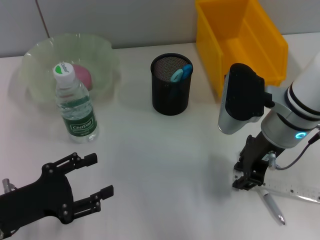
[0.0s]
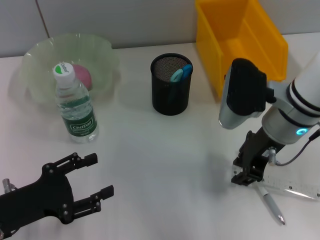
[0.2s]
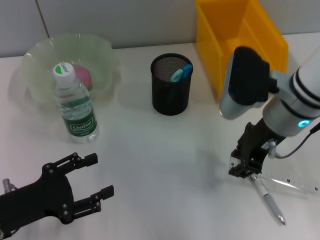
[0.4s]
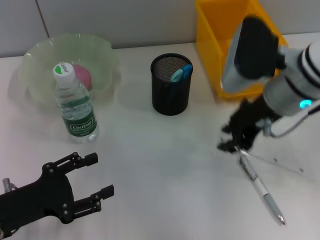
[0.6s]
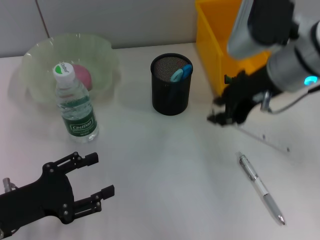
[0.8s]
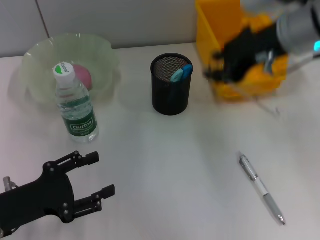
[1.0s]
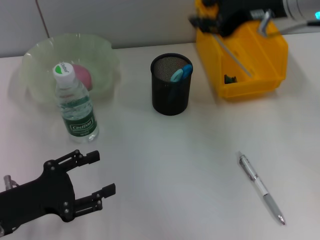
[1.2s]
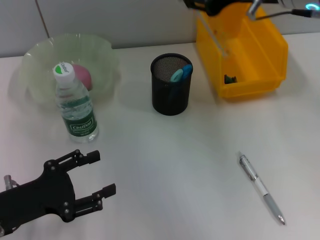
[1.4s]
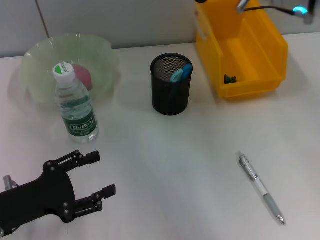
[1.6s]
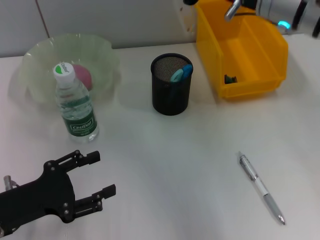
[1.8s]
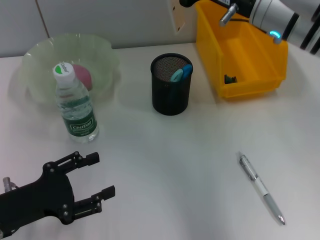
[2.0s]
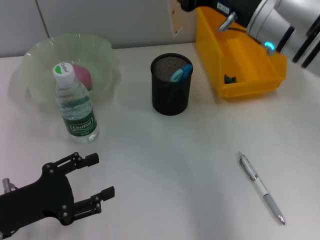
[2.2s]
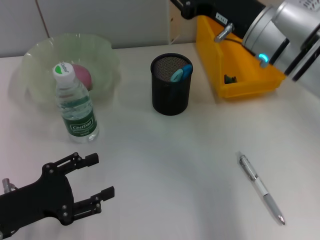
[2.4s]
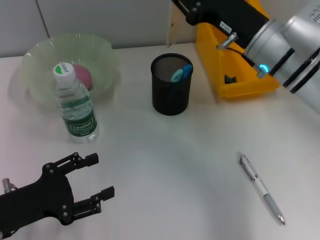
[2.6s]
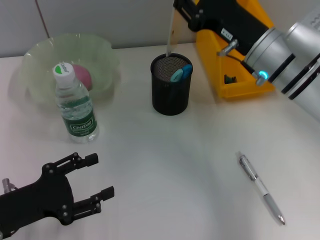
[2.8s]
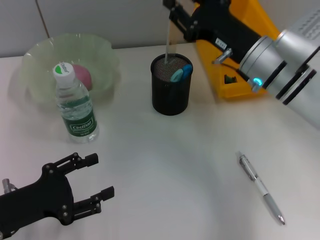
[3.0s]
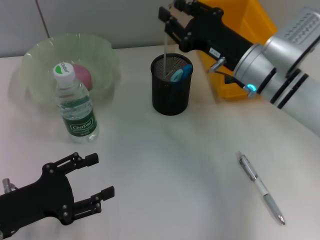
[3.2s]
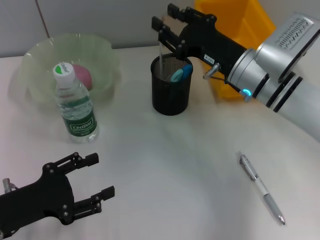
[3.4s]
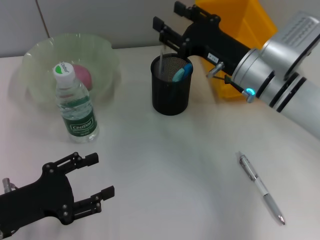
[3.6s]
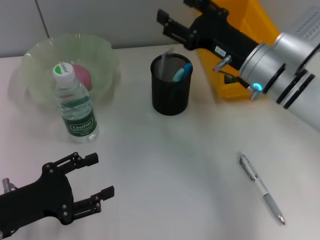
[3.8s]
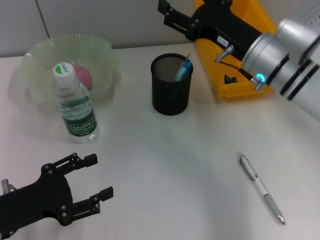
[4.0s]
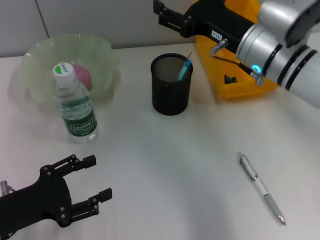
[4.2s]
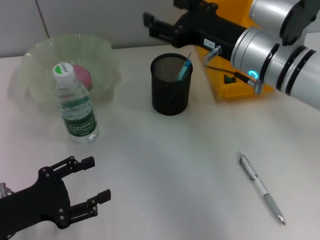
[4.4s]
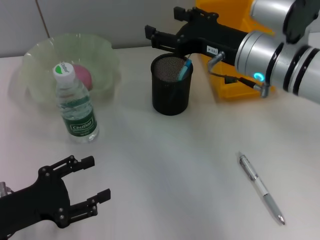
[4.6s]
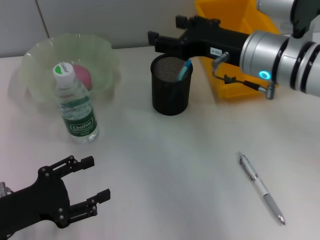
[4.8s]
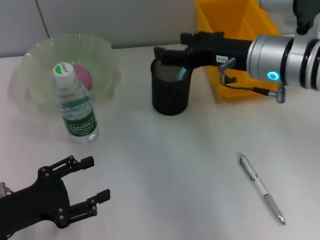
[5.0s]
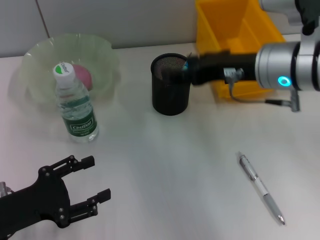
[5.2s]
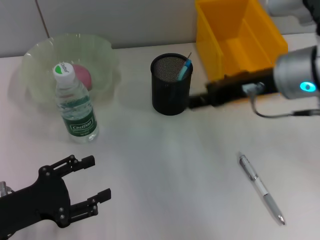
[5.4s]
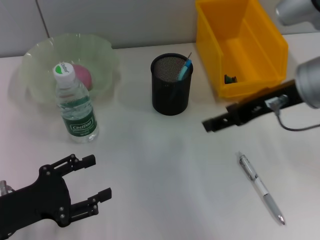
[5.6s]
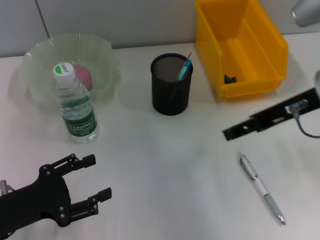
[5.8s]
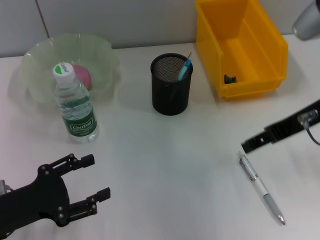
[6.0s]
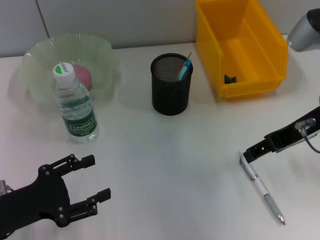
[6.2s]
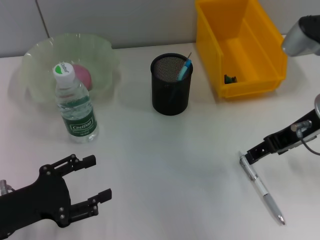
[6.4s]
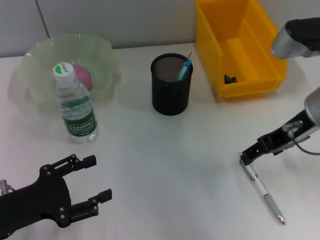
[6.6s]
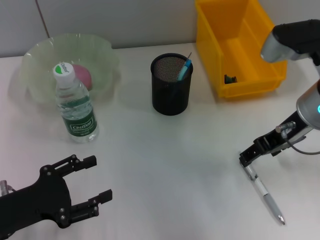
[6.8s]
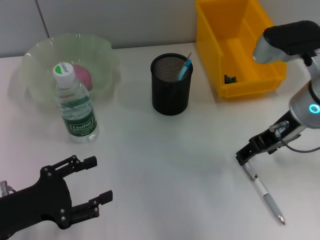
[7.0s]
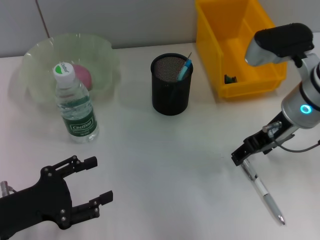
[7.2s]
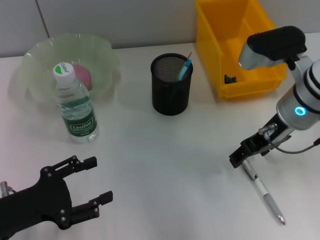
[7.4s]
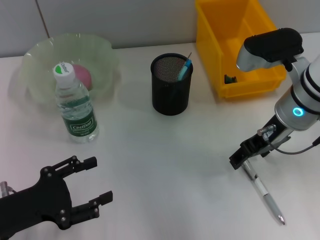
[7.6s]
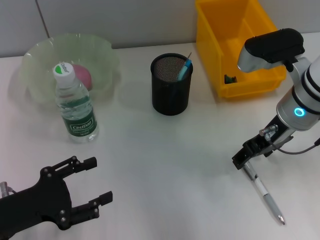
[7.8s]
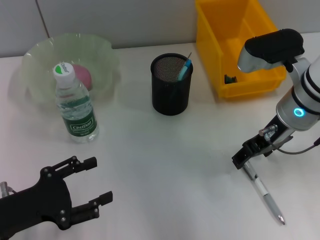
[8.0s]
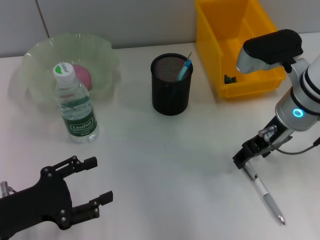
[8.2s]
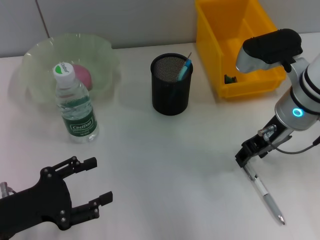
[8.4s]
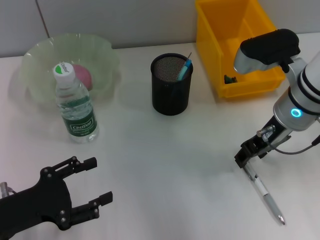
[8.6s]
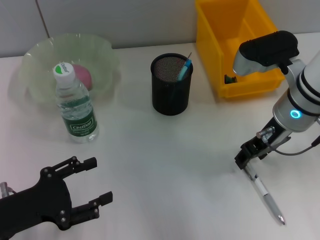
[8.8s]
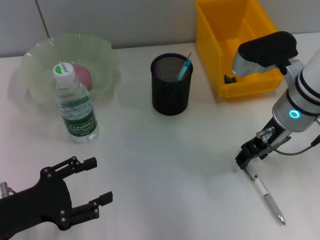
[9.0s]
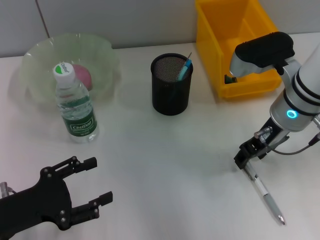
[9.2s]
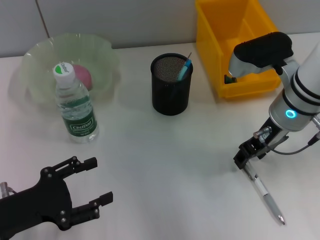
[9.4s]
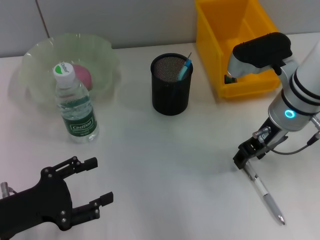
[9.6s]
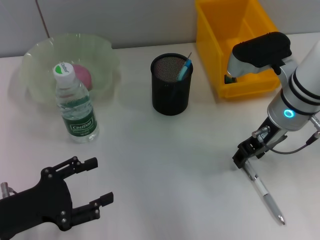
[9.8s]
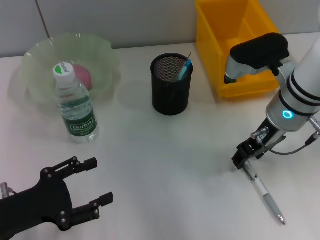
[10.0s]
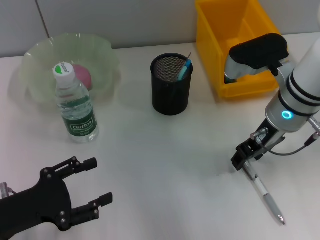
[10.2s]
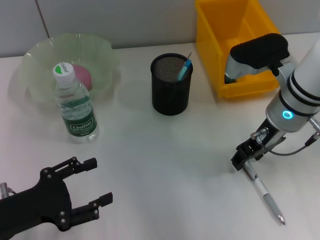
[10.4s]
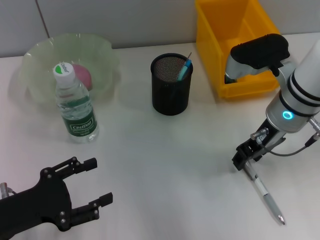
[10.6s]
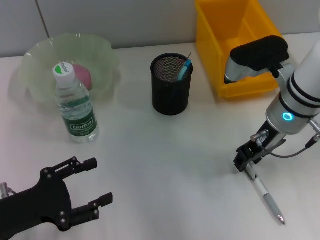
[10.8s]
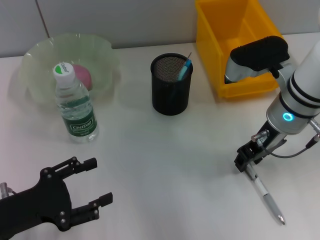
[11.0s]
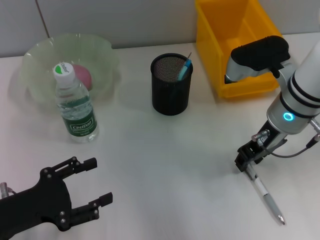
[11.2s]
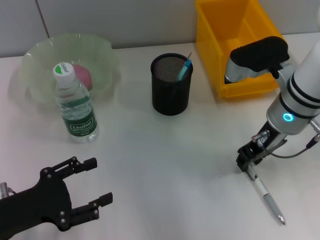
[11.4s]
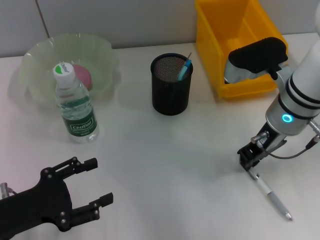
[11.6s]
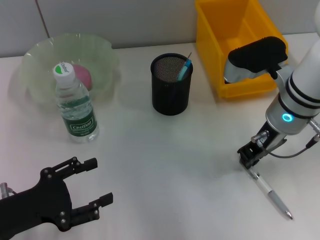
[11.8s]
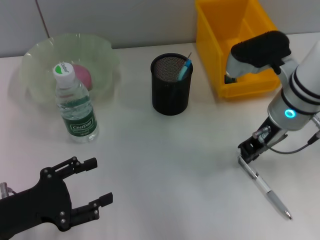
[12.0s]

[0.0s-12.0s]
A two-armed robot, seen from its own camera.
Step, 0.0s to 4.0s: Place the ruler into the pen holder with the right hand.
0.0s to 1.6s: The right gripper goes approximately 15 cm upward.
1.6s to 3.0s: The right gripper is displaced downward by some 15 cm.
3.0s to 4.4s: The right gripper moves some 5 cm, and opens.
4.4s to 6.0s: The right gripper goes about 10 cm to the right.
6.0s to 7.6s: The right gripper moves downward, approximately 5 cm.
7.6s to 9.0s: The right gripper closes its fingers.
9.0s to 10.4s: Both grippers stay put.
10.4s to 12.0s: The right gripper closes its fingers.

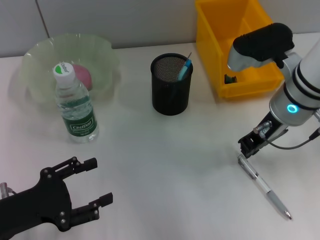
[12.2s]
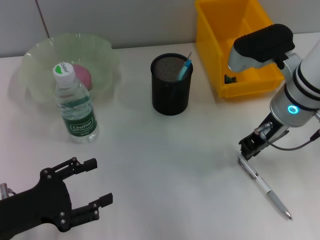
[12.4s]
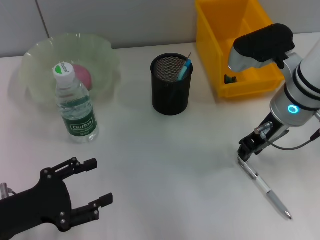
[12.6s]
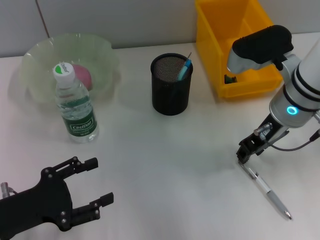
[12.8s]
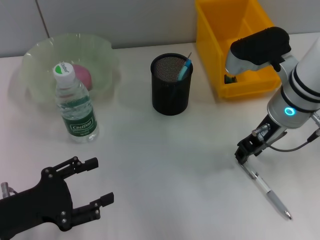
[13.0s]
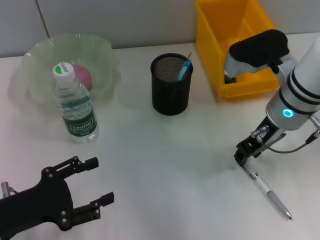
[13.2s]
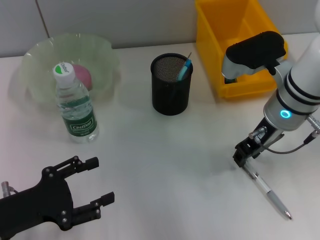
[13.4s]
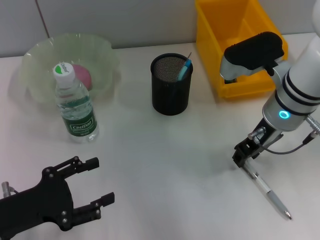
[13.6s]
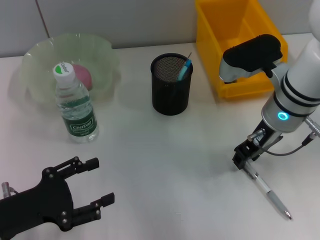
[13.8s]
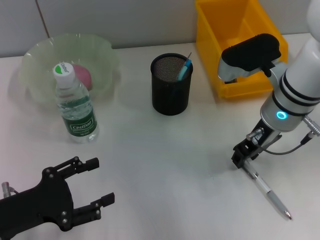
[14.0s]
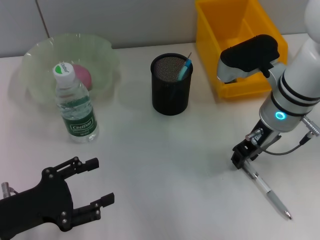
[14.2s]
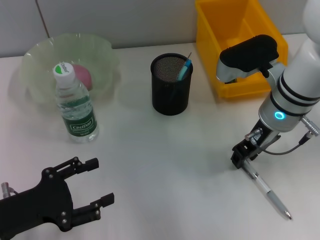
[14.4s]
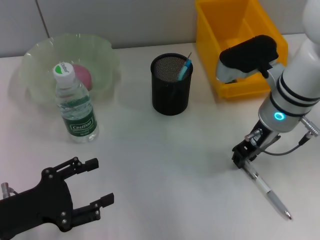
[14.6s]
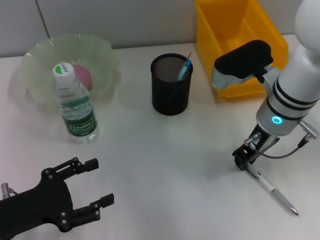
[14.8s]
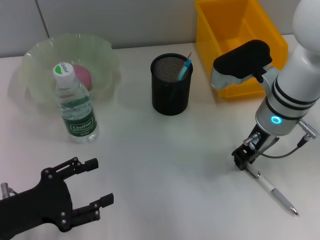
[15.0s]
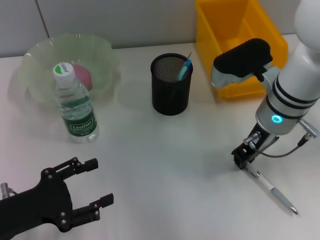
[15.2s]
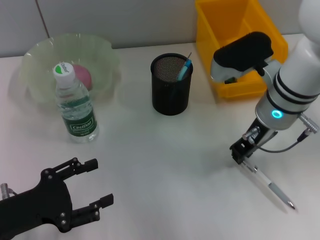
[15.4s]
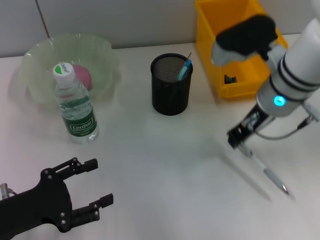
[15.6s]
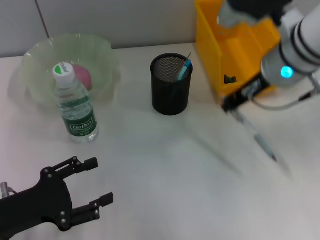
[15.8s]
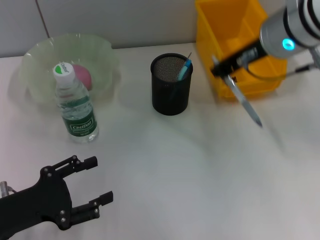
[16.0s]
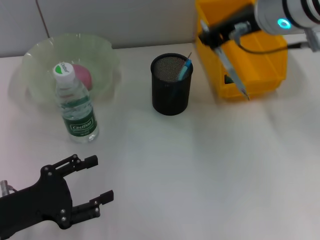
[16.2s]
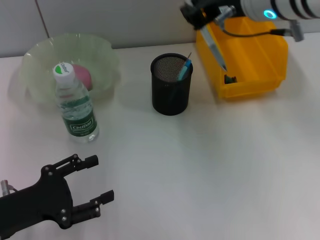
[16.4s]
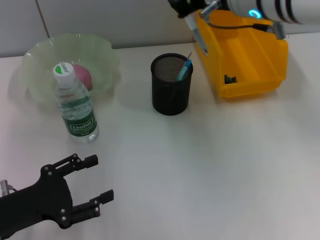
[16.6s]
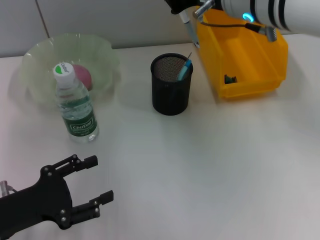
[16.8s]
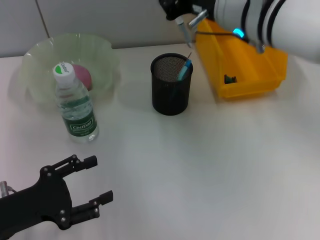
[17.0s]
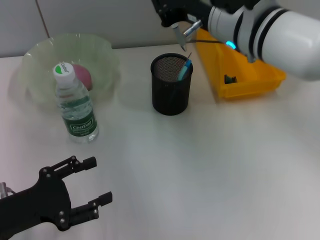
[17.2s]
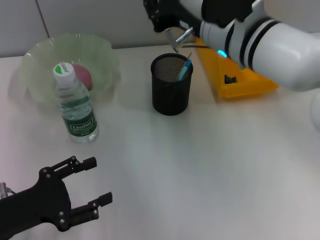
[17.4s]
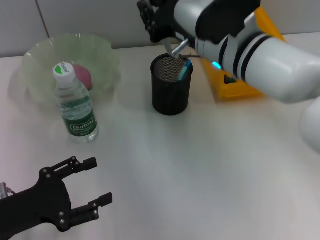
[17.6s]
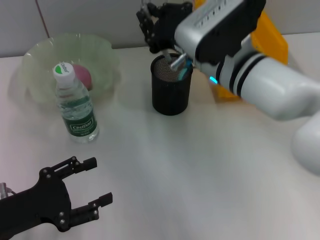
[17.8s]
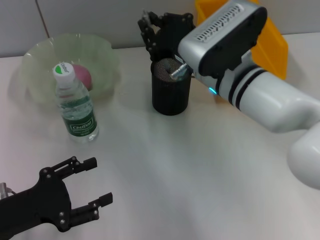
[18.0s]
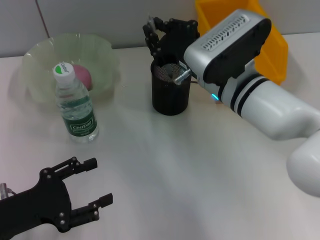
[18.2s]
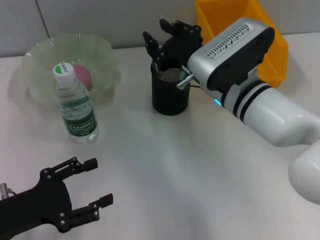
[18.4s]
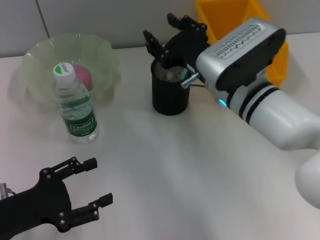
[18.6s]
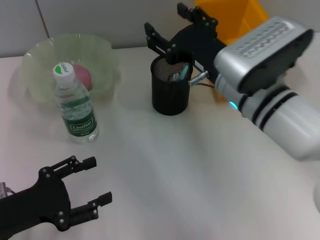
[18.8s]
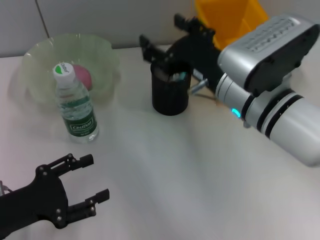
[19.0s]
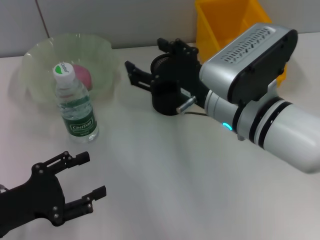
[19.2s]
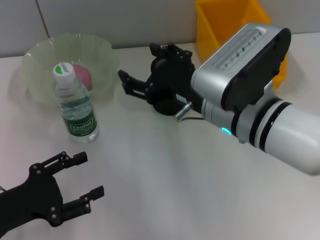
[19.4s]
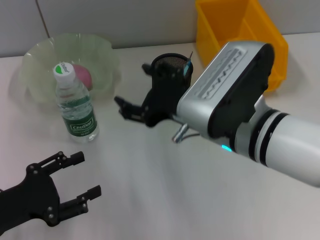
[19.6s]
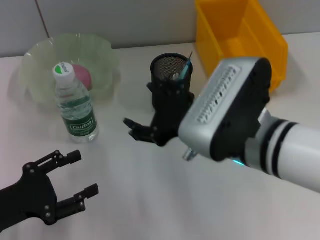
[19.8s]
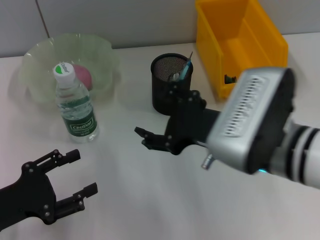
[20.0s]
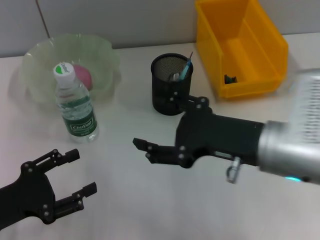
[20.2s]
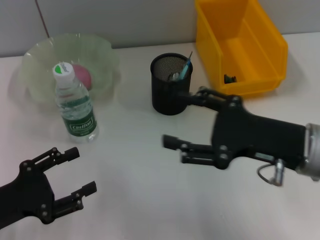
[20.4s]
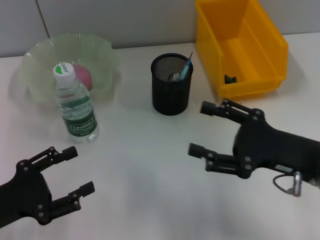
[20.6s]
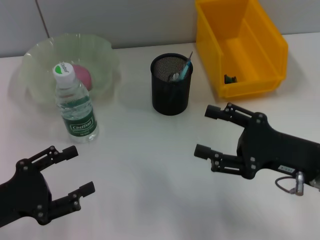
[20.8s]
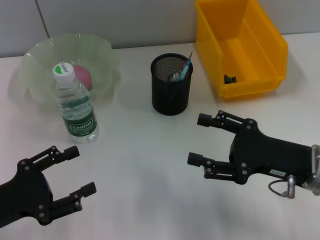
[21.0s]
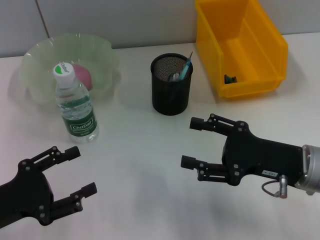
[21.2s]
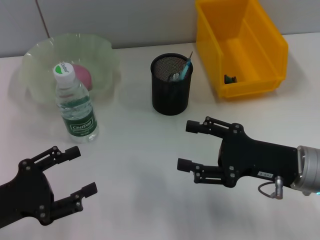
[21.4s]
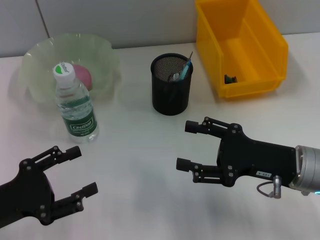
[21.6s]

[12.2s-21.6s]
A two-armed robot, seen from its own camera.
Step, 12.2s to 14.6s: Grab the gray spring-action pen with the right hand.
Step, 15.0s to 18.6s: Place the gray spring-action pen into the pen holder with the right hand.
12.2s to 13.8s: The grippers stay close to where they were, moving slightly.
13.8s to 15.4s: Neither gripper changes place.
15.4s to 17.0s: The right gripper goes approximately 10 cm upward.
17.0s to 18.4s: The right gripper shifts roughly 10 cm downward.
18.4s to 20.0s: The right gripper moves backward, approximately 10 cm, and opens up.
20.0s to 21.6s: The right gripper heads to the right and downward, covering approximately 15 cm.

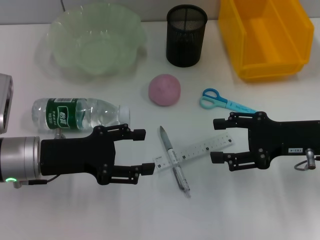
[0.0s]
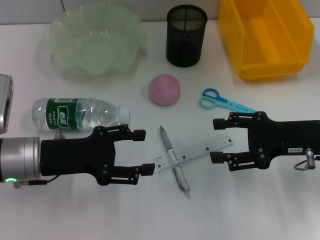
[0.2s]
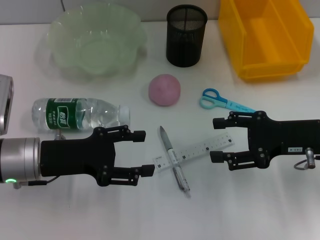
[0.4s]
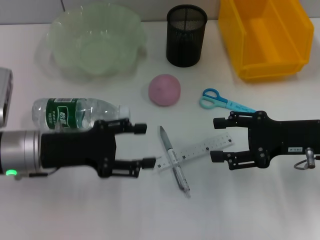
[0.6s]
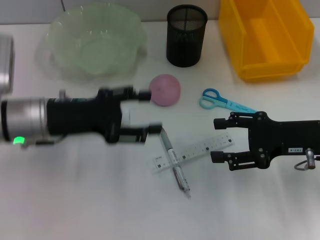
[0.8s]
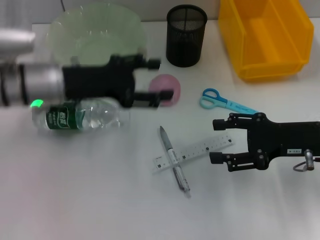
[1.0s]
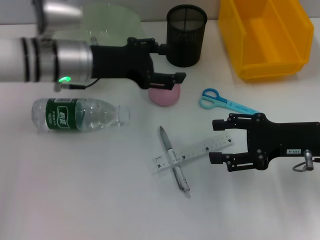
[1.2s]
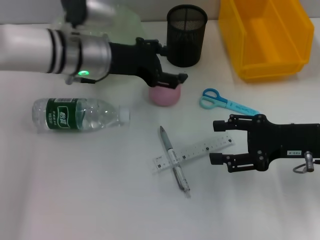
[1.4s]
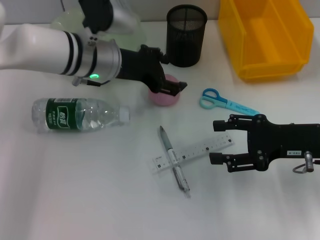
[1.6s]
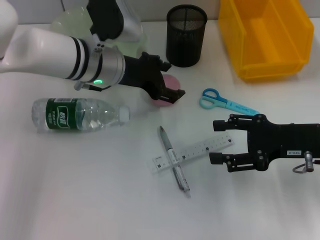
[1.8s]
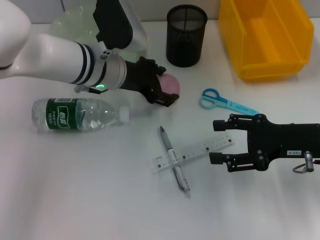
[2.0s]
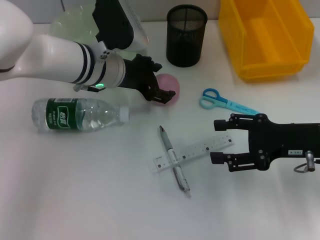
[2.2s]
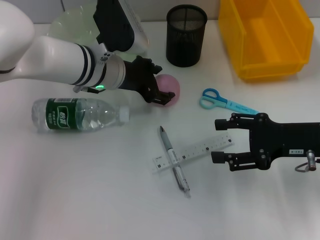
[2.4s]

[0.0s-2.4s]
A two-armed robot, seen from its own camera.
0.0s to 1.2s: The left gripper goes approximately 15 cm forward, upward and to the right.
1.2s to 2.4s: The left gripper is displaced to the right by some 5 cm.
